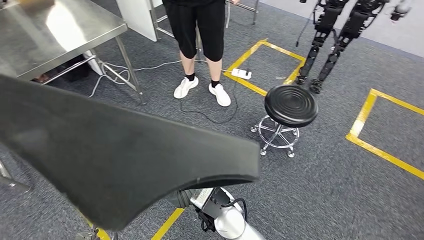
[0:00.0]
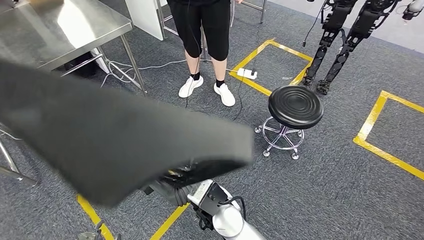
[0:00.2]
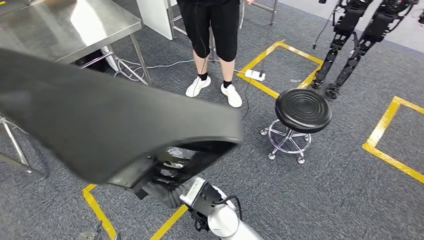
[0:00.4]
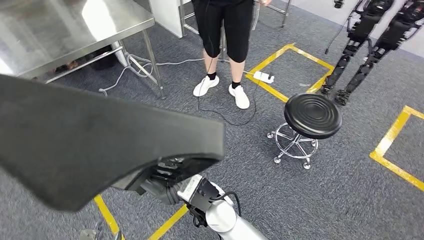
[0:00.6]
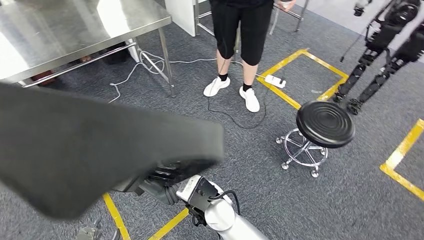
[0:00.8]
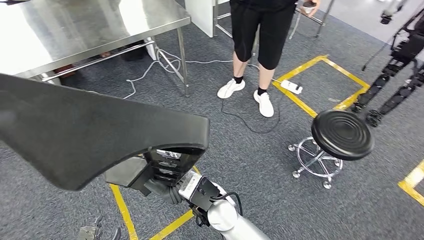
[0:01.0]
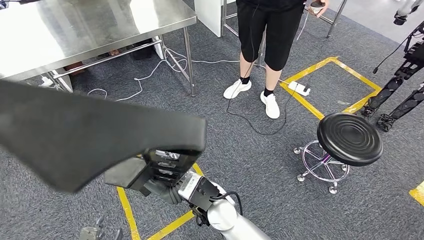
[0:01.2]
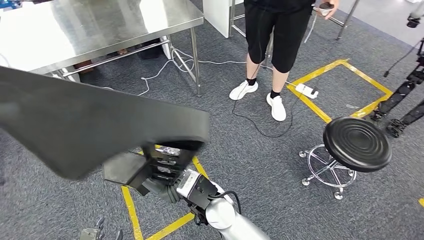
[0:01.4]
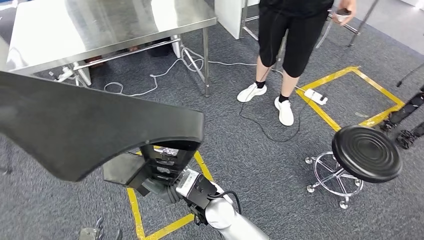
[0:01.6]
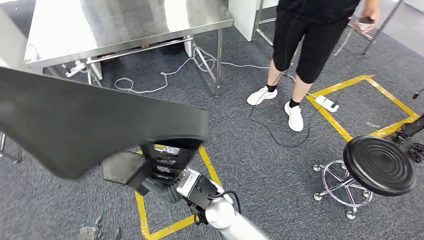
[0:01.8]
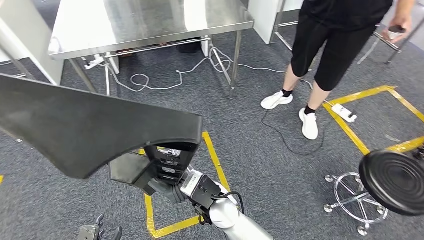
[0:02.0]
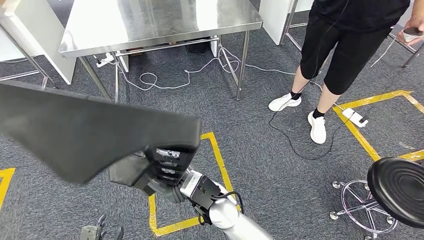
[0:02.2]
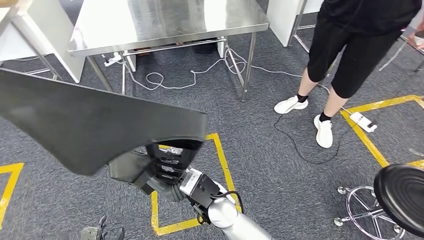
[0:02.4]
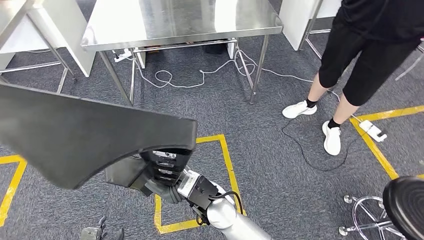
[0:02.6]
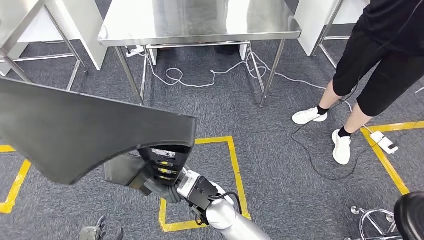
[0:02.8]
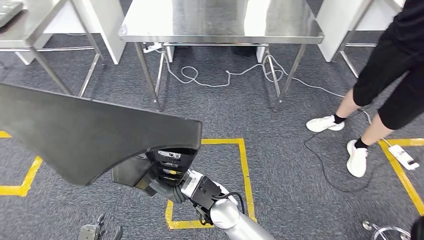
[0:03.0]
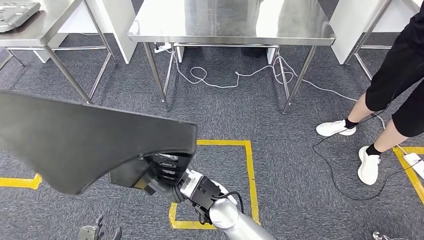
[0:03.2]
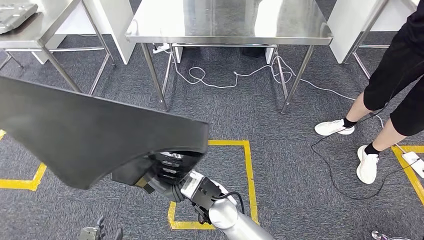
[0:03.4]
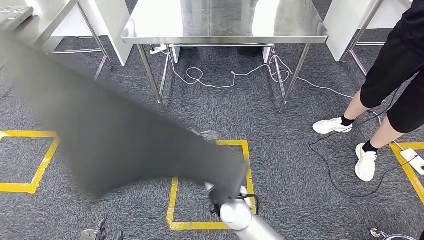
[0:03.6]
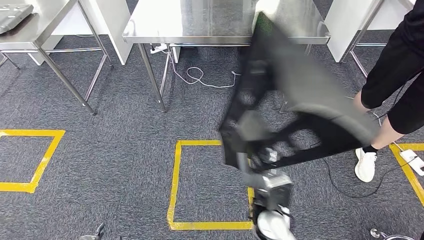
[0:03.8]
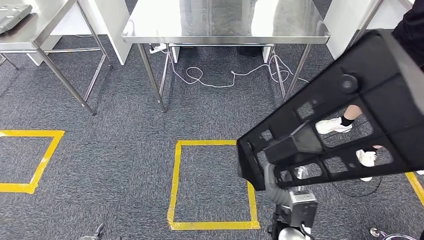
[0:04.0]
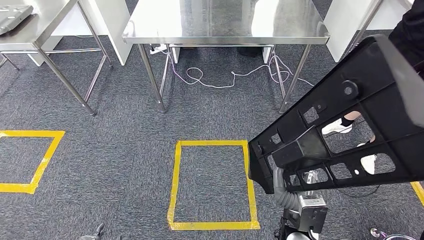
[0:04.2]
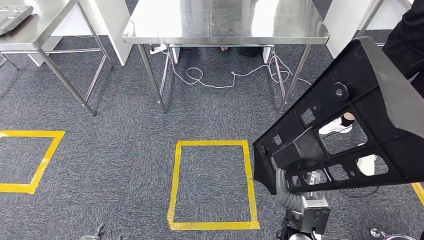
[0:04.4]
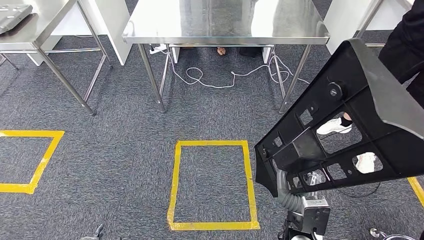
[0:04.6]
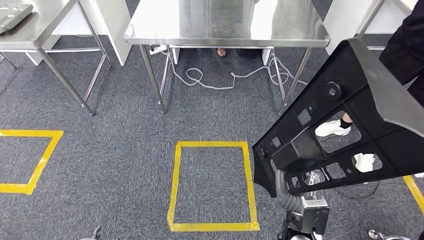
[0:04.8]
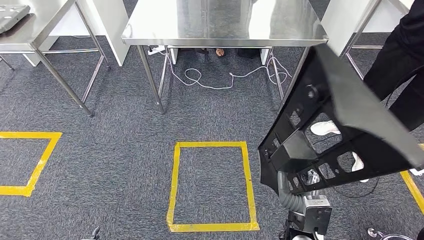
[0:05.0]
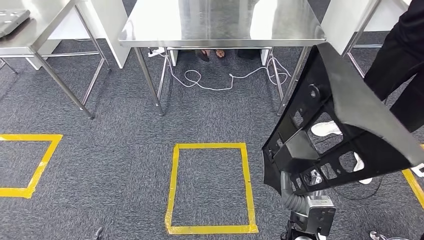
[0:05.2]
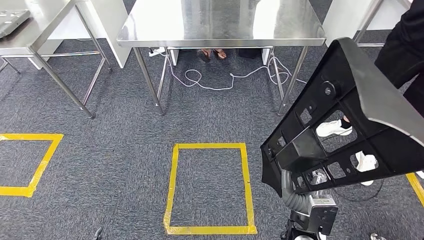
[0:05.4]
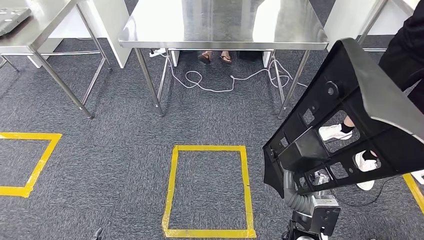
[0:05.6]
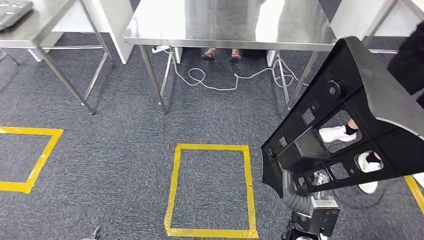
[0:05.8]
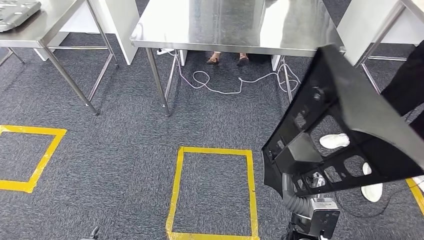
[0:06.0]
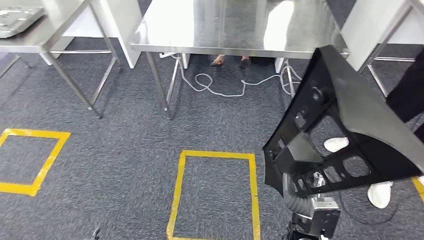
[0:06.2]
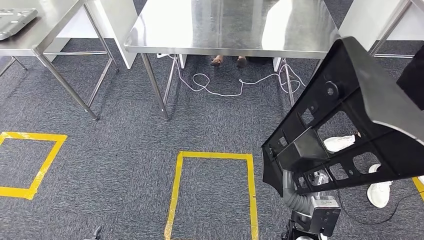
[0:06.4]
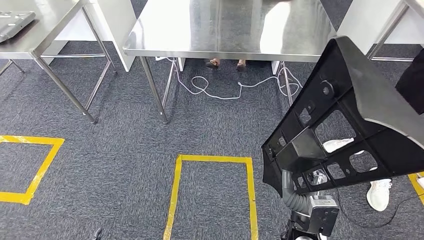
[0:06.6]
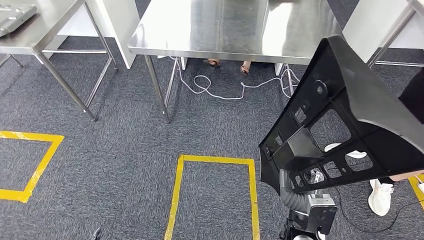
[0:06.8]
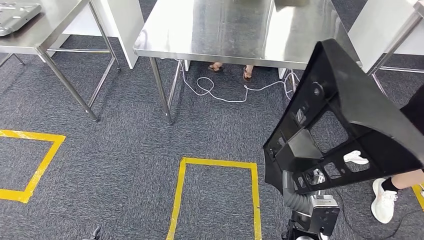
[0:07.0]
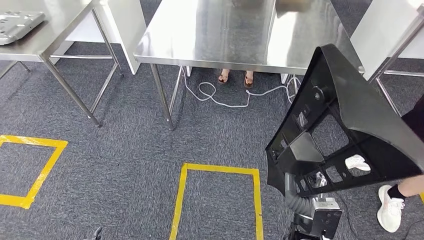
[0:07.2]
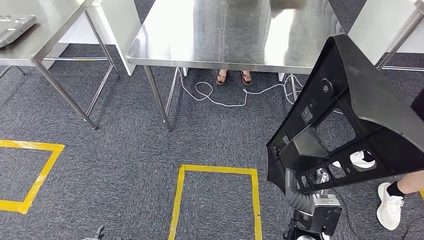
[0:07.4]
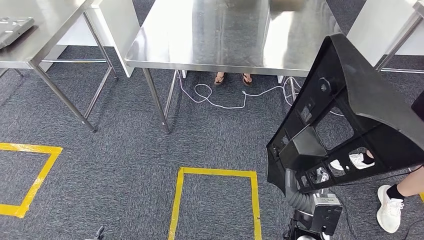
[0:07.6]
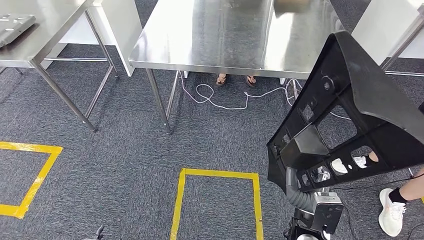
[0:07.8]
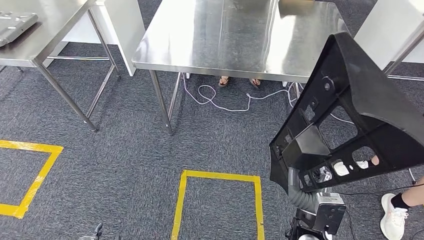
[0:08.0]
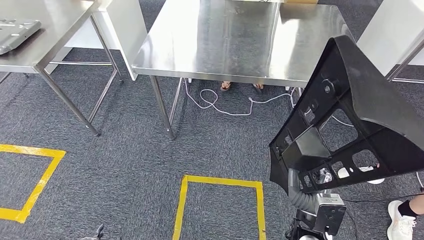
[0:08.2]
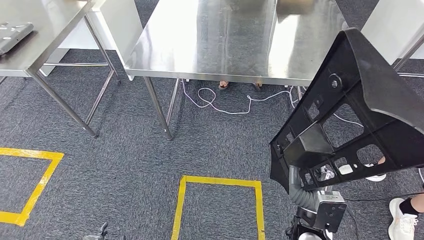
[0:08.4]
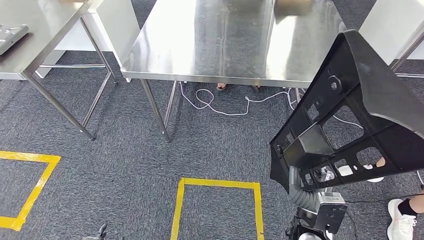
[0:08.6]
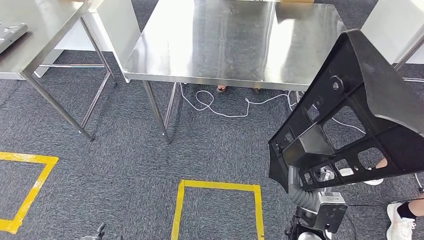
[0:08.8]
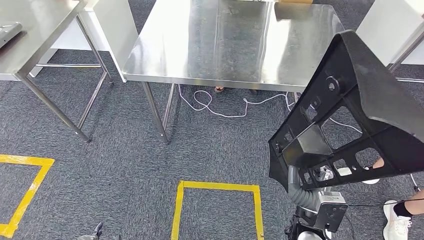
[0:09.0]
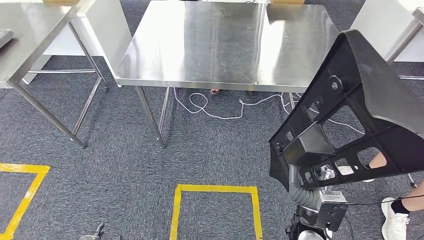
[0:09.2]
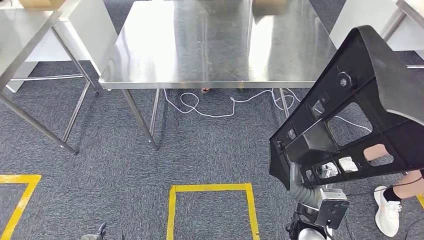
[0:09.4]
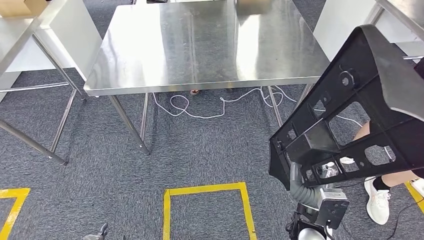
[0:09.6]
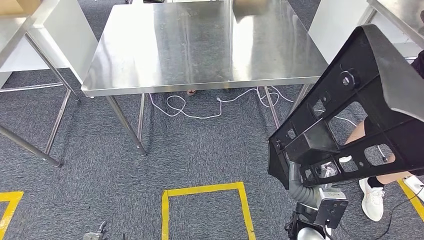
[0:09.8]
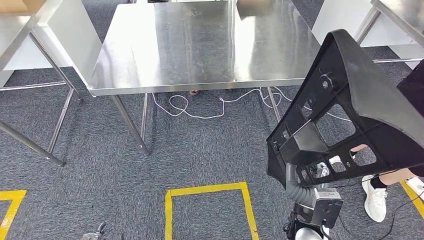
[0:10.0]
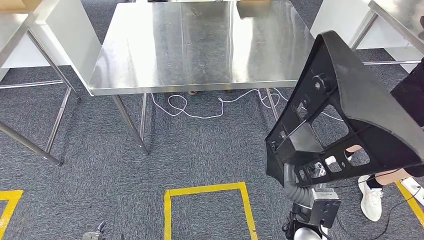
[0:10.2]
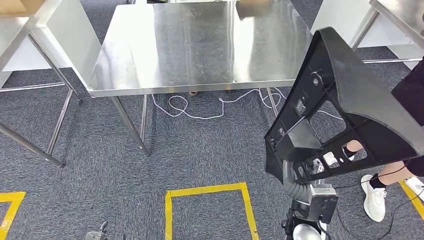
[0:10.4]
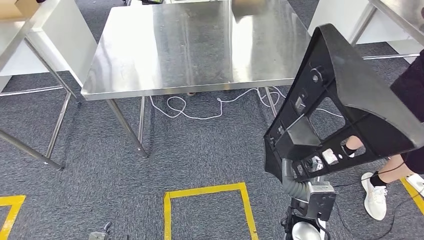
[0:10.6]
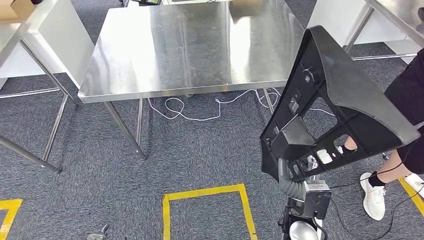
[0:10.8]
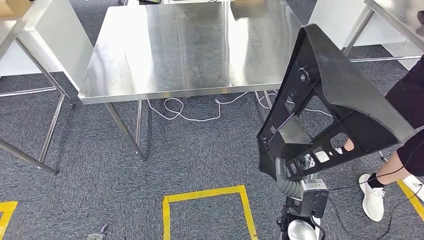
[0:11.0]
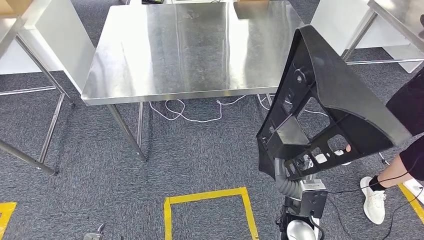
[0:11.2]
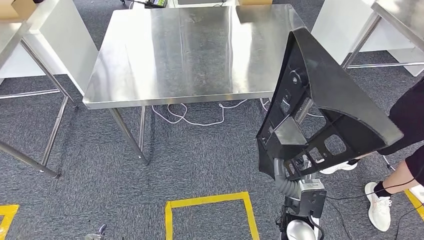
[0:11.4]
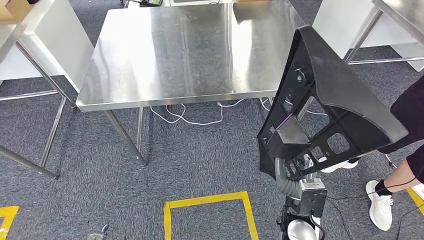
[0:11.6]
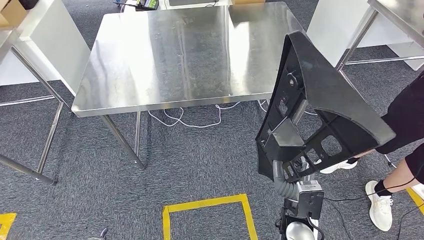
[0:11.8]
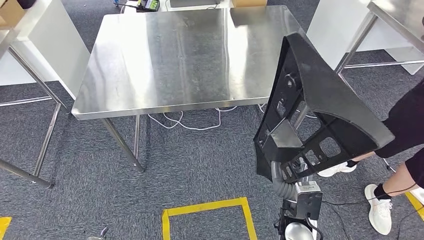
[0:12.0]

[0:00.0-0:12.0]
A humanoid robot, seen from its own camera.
Step, 0:00.0 to 0:09.4: Move the large material to the workbench.

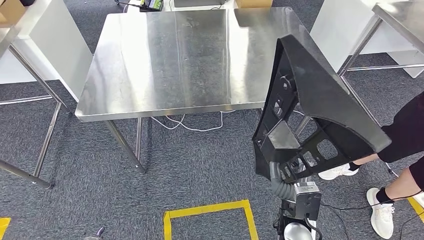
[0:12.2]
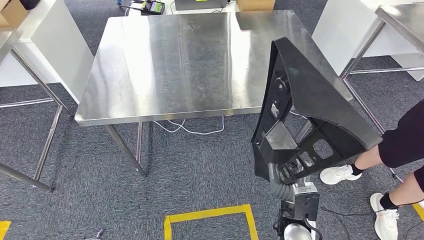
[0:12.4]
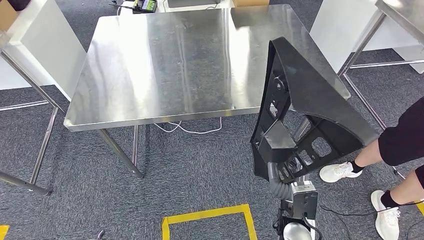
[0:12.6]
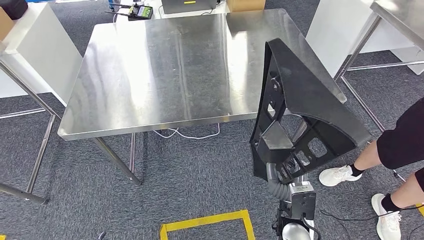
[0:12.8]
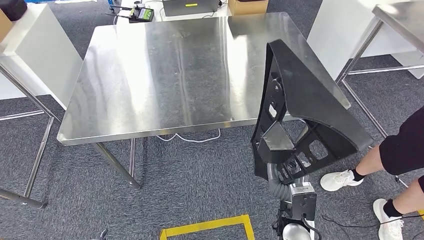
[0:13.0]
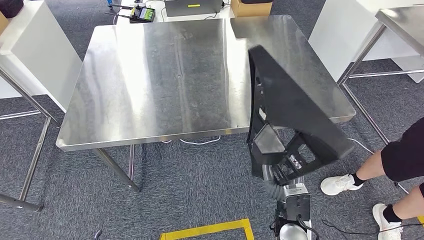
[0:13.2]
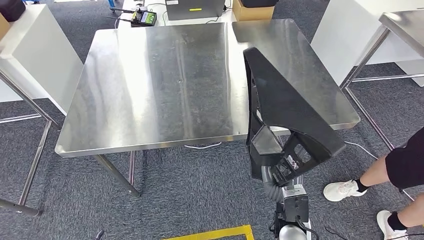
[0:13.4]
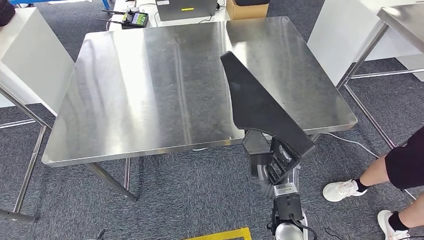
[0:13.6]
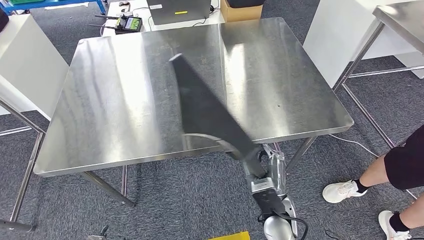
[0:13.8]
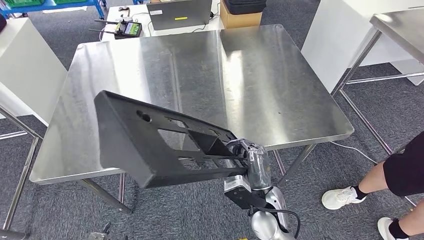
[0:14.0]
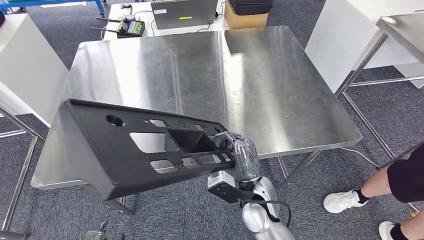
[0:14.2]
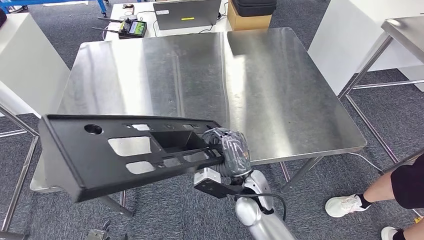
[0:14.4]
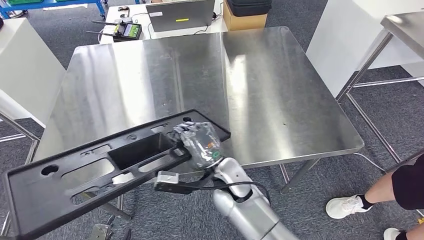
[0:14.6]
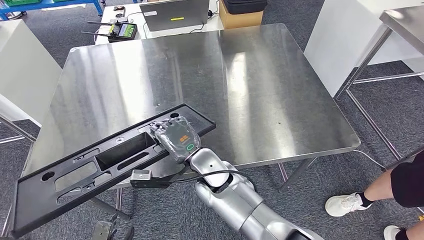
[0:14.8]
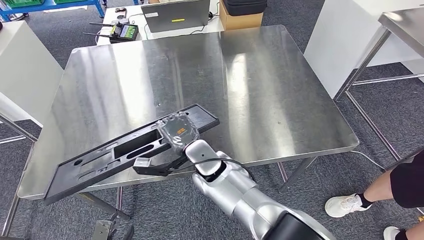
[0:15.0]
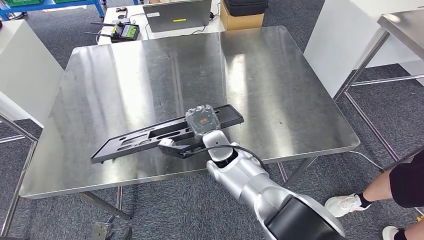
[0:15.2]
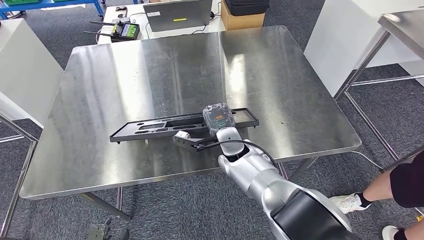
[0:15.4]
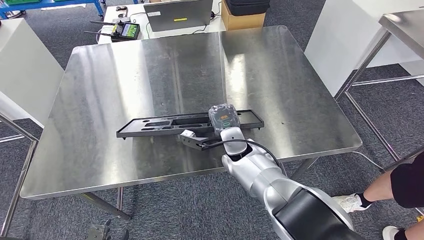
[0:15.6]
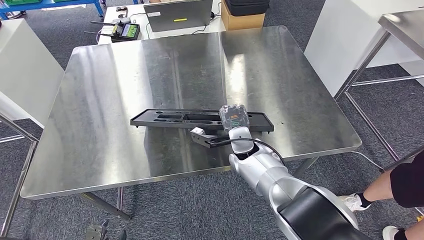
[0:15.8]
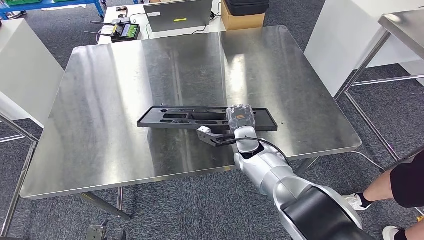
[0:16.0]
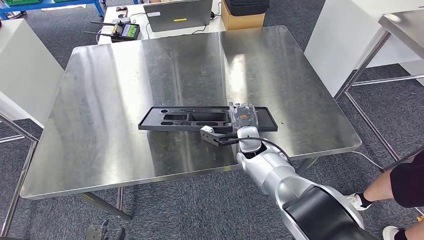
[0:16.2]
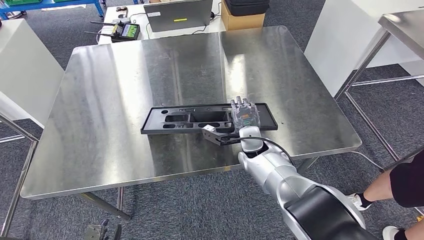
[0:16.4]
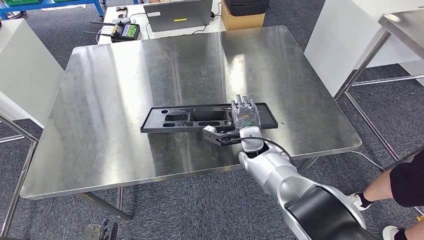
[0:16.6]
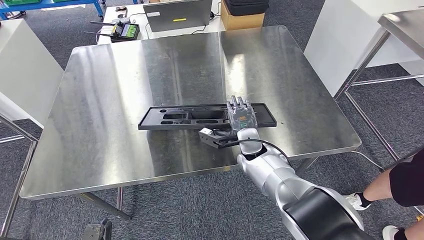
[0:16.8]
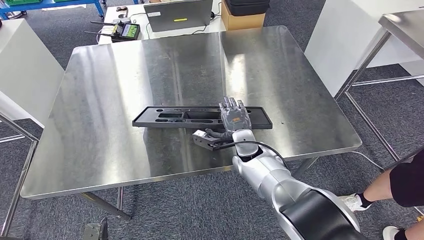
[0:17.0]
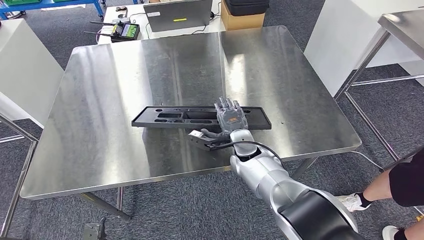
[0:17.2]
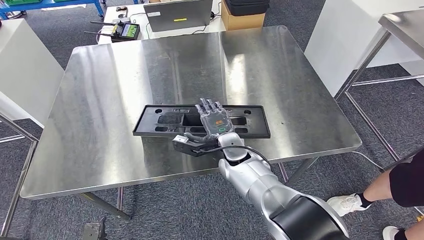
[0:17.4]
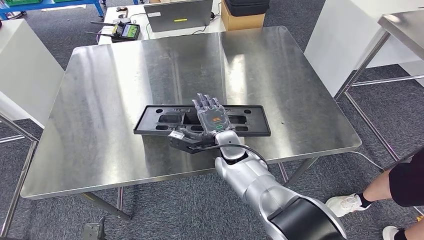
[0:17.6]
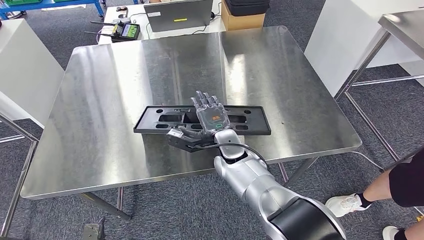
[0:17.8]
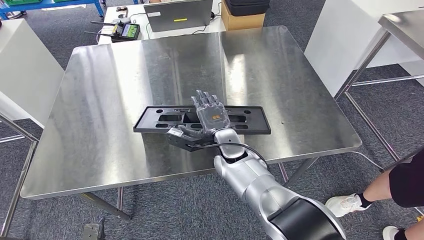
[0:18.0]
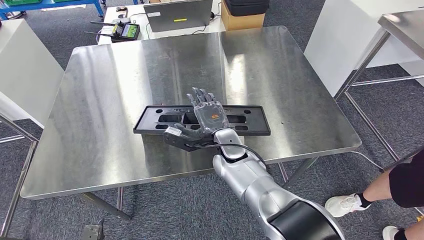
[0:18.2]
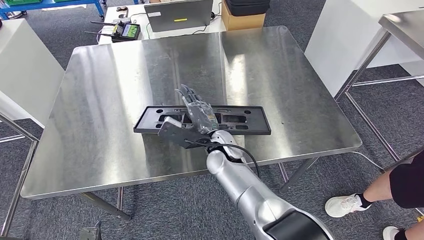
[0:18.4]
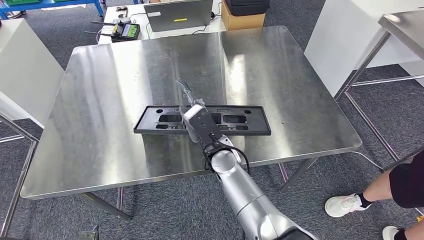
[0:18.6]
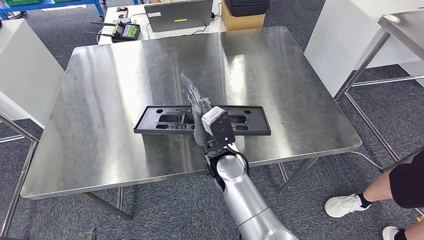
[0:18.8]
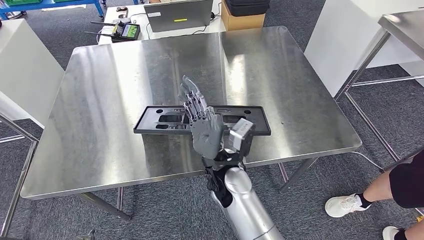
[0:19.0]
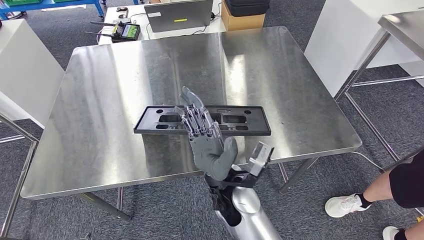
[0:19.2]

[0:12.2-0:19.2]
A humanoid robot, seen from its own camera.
0:16.4 to 0:17.8: The right hand travels to the left by about 5 cm.
0:17.8 to 0:19.2: The right hand moves backward, approximately 15 cm.
